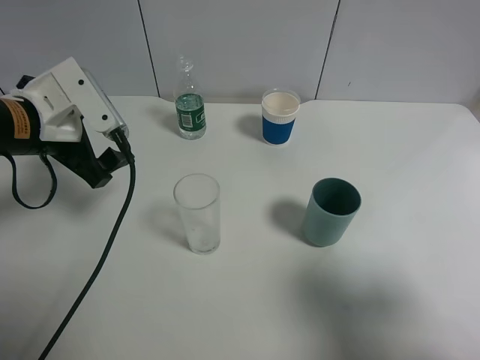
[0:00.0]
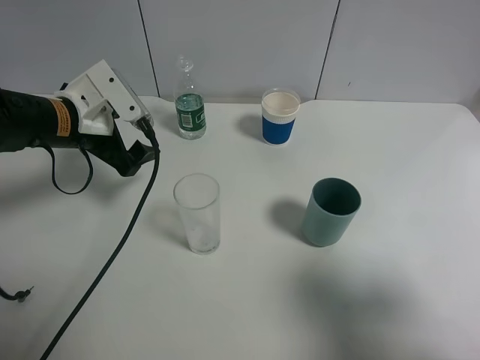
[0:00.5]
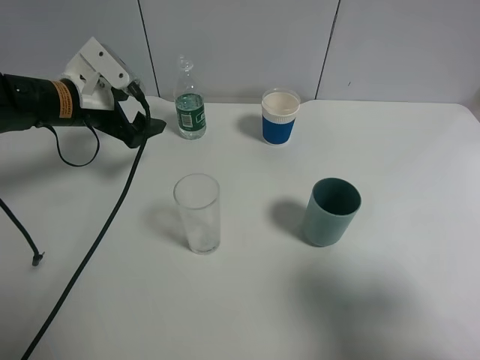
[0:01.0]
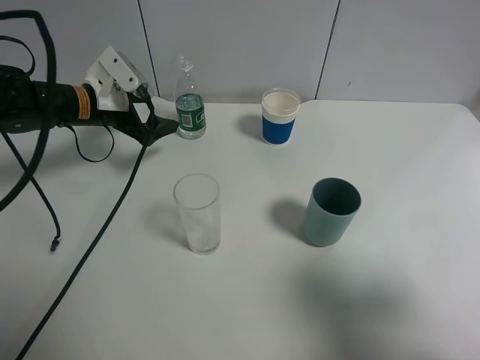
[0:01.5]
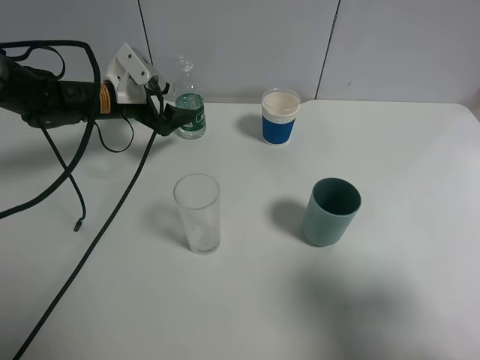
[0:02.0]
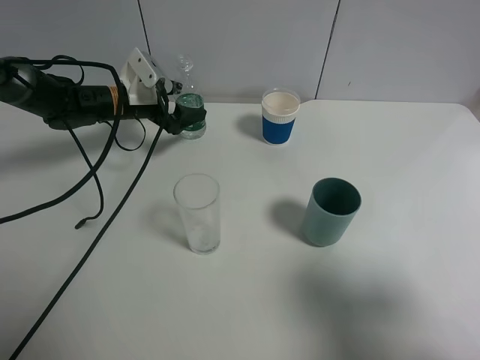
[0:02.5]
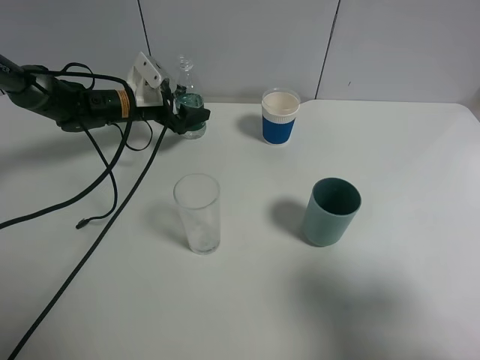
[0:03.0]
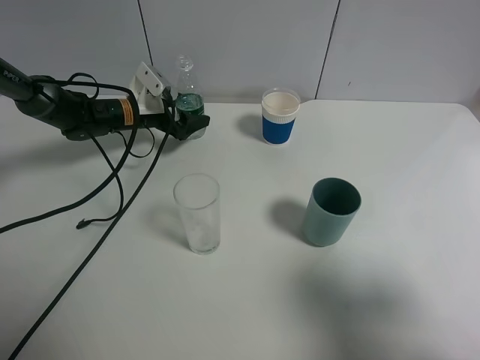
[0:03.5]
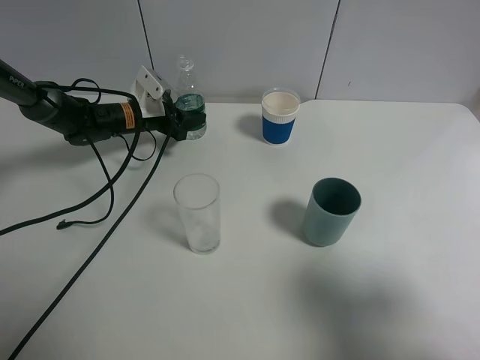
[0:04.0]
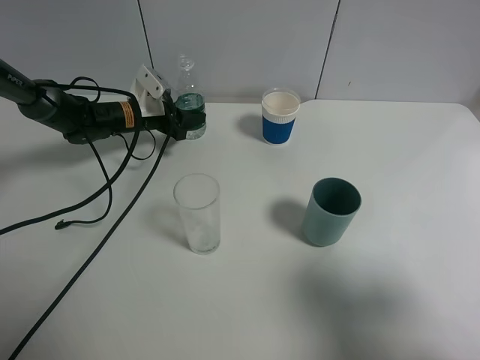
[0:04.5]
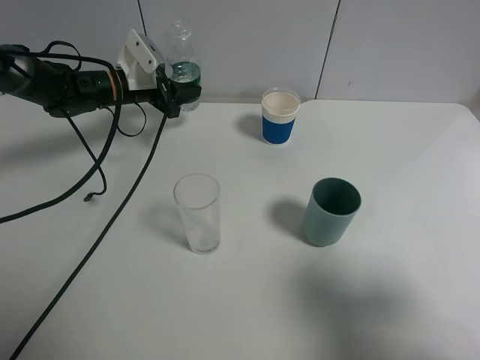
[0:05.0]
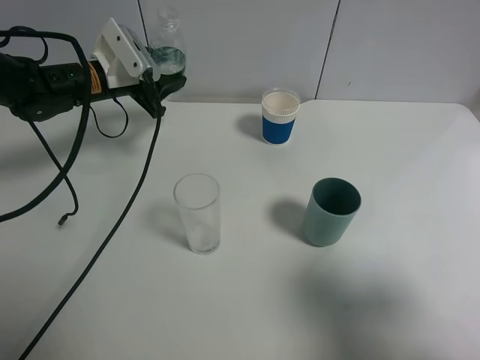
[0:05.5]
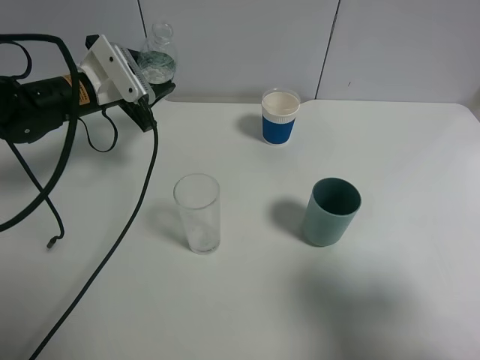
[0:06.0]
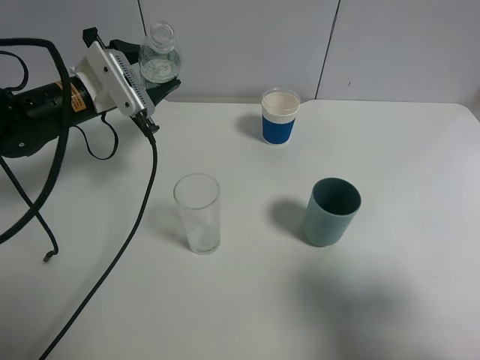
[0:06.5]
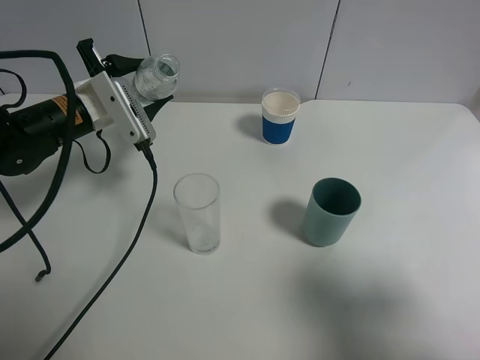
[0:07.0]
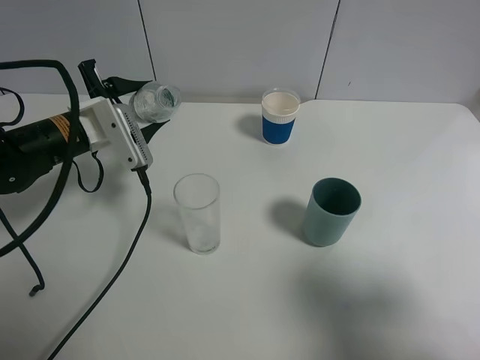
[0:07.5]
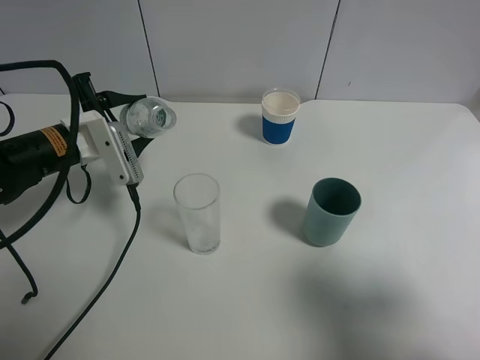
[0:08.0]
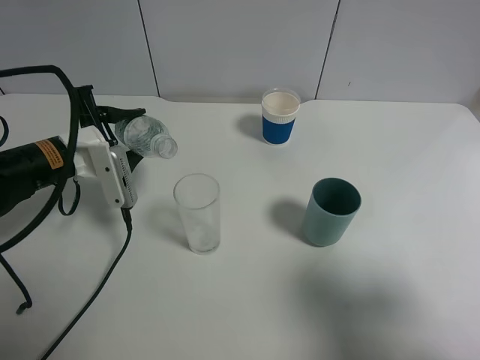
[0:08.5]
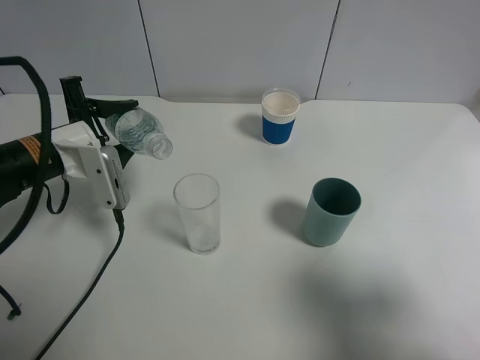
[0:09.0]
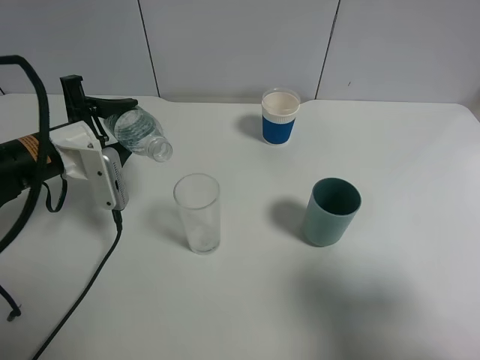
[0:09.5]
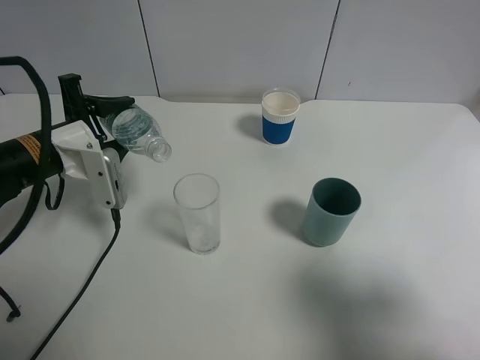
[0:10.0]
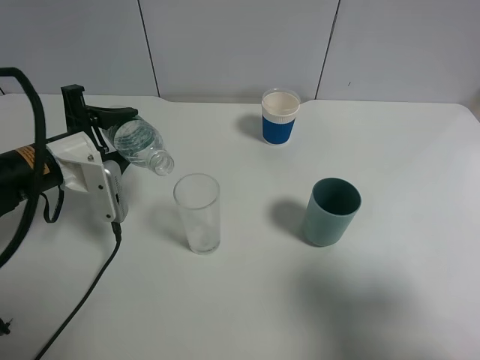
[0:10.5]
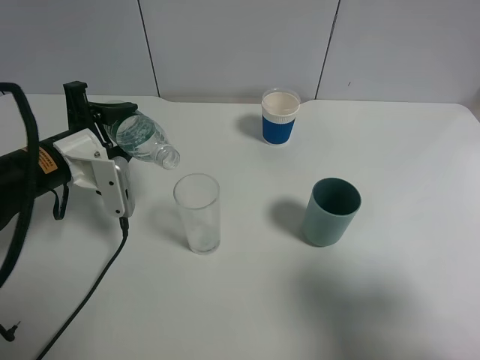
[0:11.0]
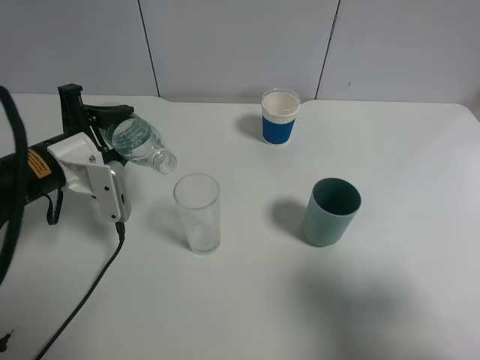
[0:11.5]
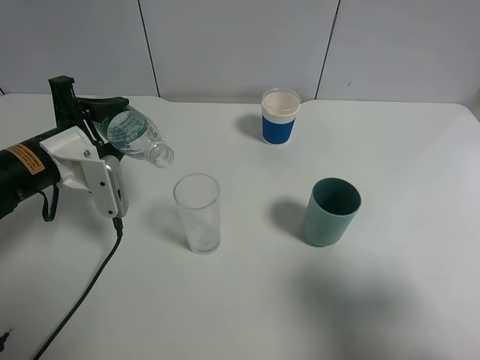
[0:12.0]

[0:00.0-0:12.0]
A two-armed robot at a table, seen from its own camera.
Task of the whole recording: use a gripper to hold the bottle of the drink and pour it into a random cup.
Step, 0:00.0 to 0:04.0: Grasp the mineral water bottle with the left gripper.
0:00.0 to 0:02.0: The left gripper shifts some 20 cm forward and downward.
0:02.0 to 0:04.0: The left gripper travels downward by about 5 cm, and closes its fingers.
0:04.0 to 0:06.0: The left gripper travels upward and backward by approximately 15 cm.
0:06.0 to 0:08.0: The left gripper heads backward, covering some 5 cm.
0:10.0 to 0:12.0: The grippers move only a little.

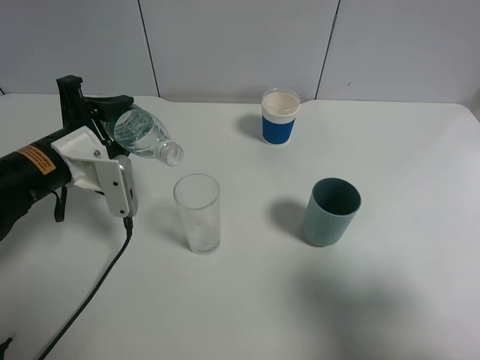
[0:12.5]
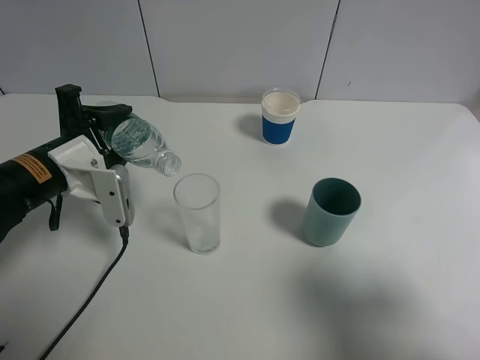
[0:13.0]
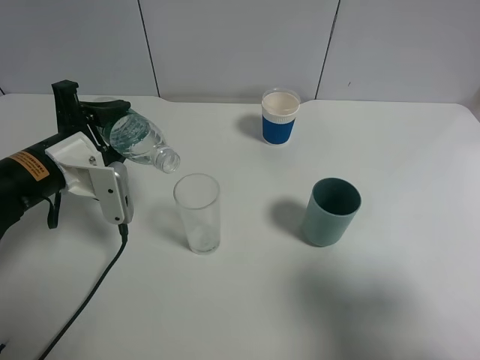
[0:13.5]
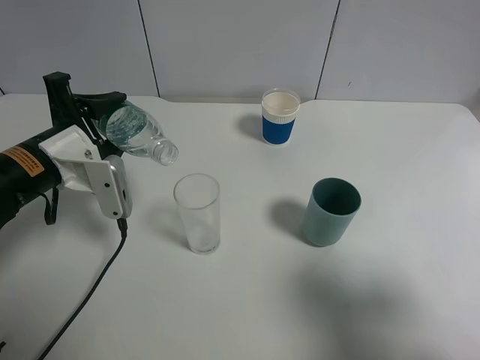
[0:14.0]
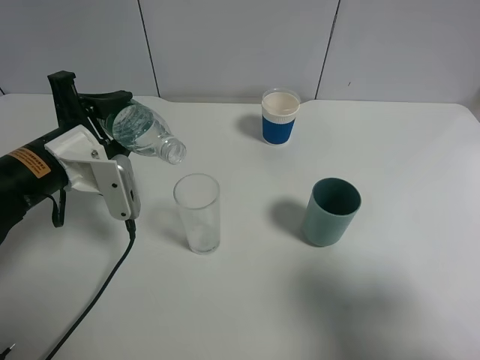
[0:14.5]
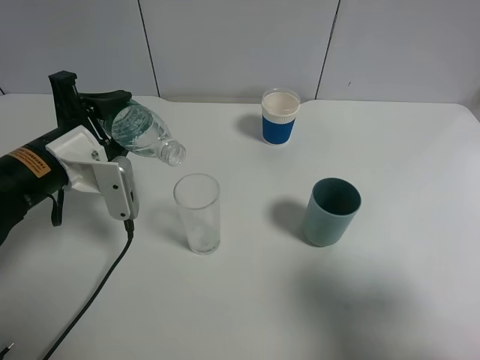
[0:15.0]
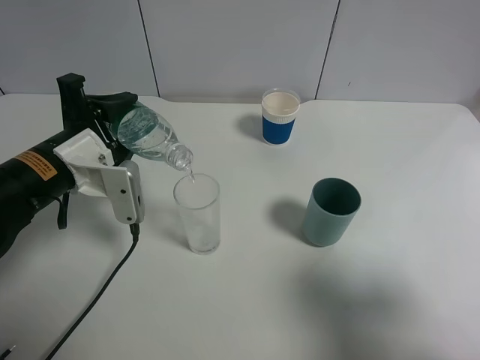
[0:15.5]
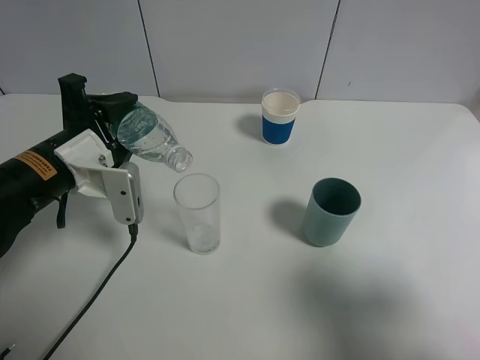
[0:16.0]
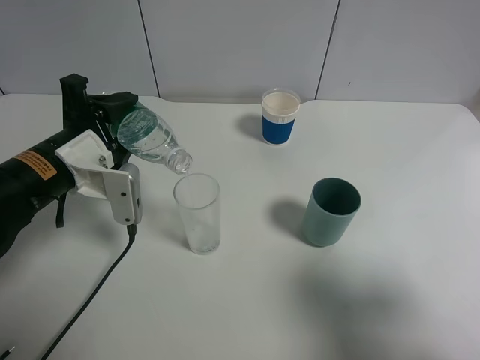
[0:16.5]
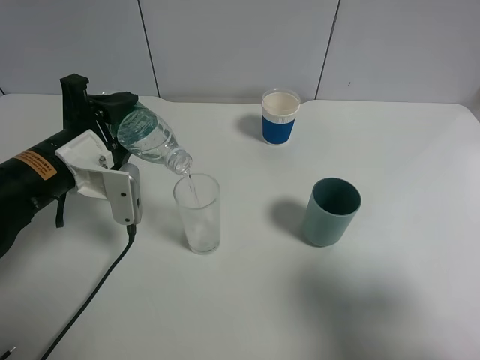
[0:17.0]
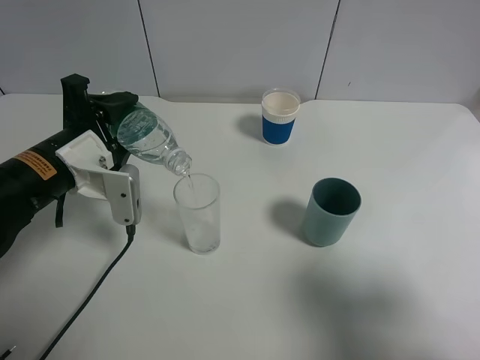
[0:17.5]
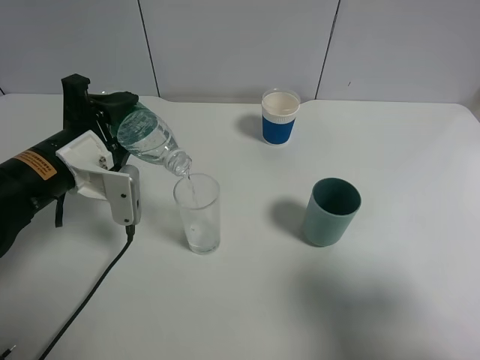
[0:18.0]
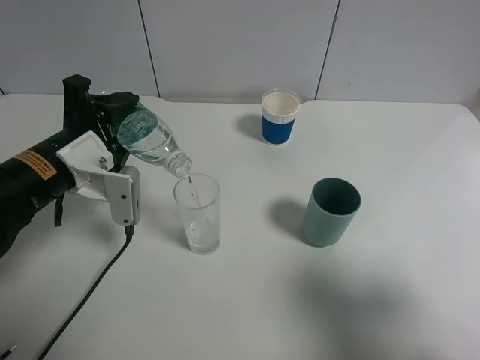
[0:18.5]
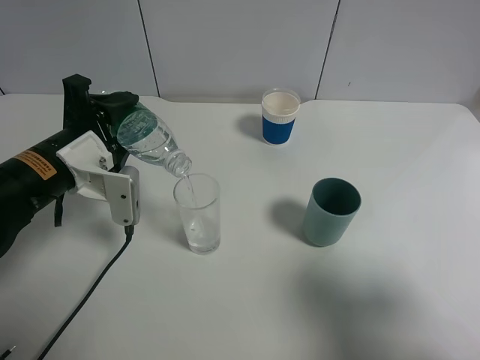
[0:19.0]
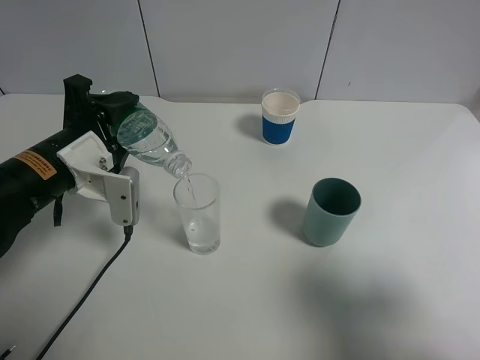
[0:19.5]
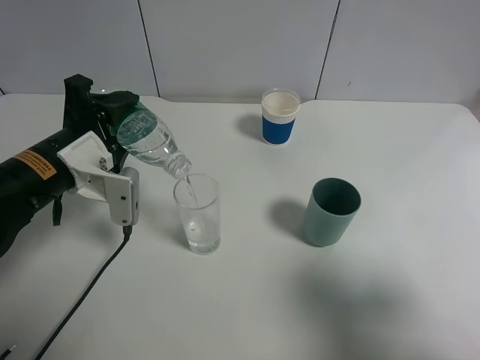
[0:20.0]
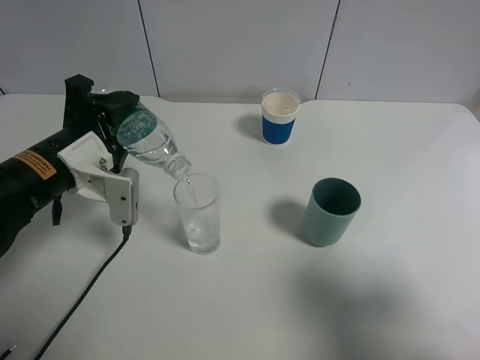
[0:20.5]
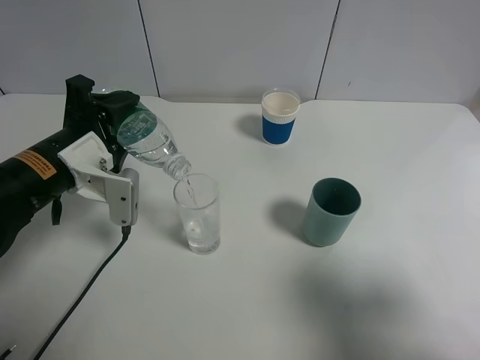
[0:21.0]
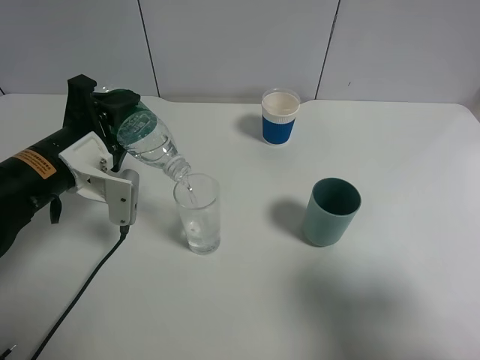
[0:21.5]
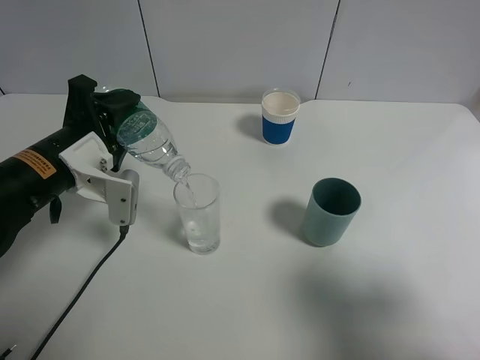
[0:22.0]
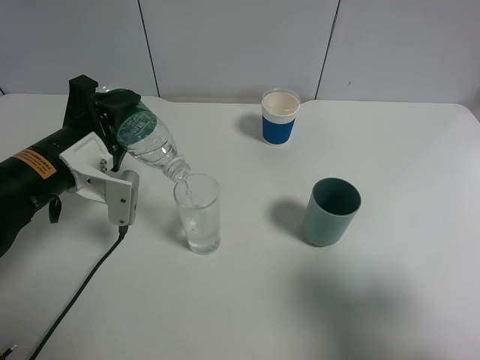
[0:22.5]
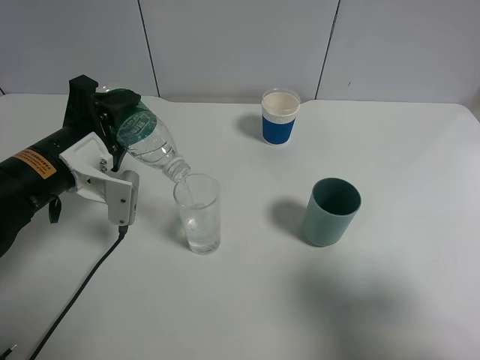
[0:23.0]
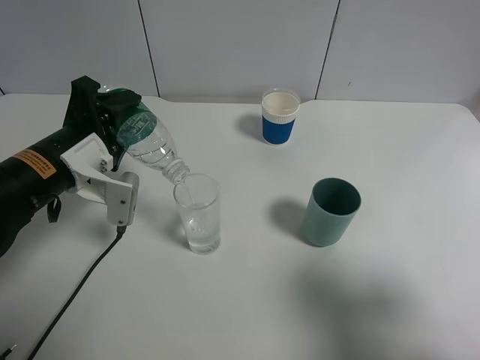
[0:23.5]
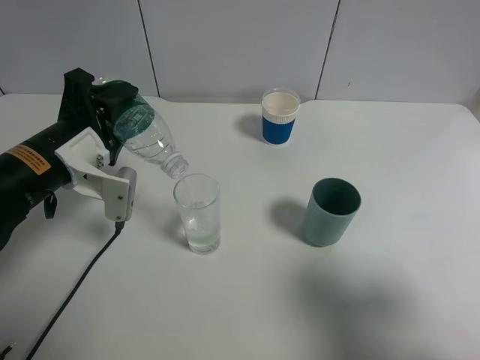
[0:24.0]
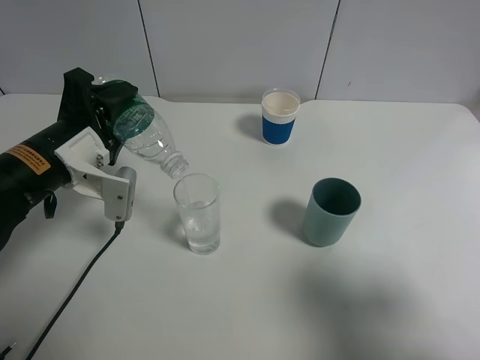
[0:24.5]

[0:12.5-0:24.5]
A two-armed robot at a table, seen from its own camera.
Task of the whole recording: use a gripper to hold the bottle of the drink and pour it into a random cup.
0:12.5 to 0:16.5: There are only small adjustments of the grippers.
0:16.5 to 0:18.5: The two grippers keep their place.
0:18.5 to 0:20.5: Both grippers stay put.
0:20.5 to 0:22.5: Both grippers stay about where they are.
0:22.5 to 0:24.5: Neither gripper changes place.

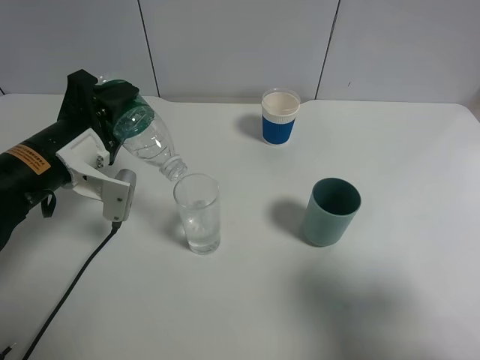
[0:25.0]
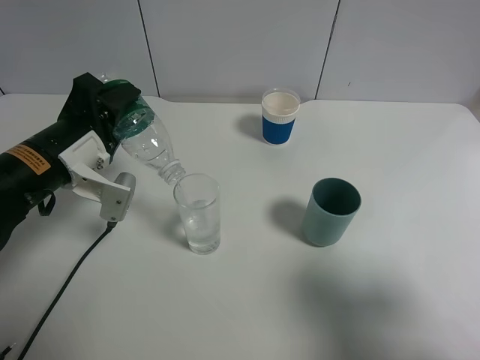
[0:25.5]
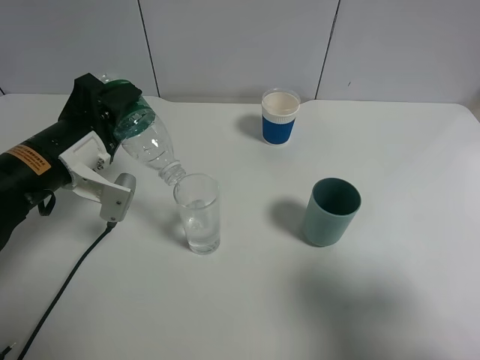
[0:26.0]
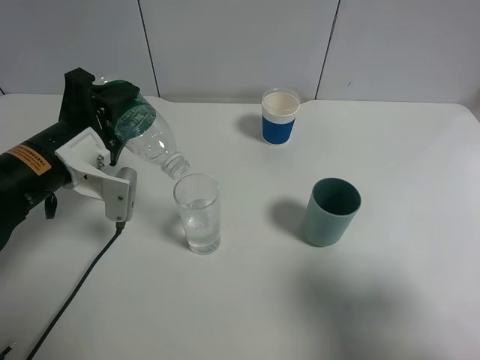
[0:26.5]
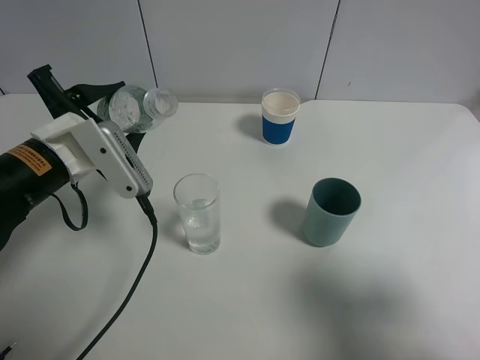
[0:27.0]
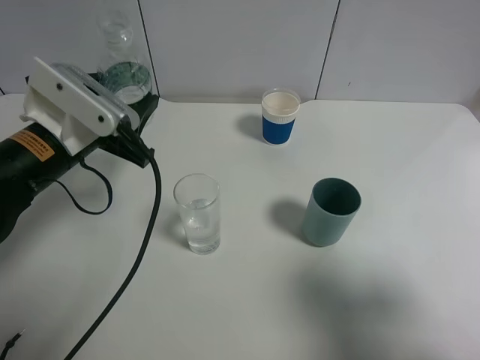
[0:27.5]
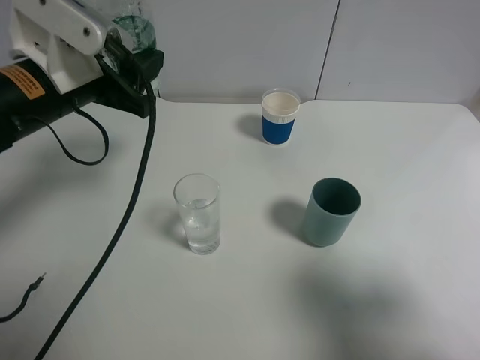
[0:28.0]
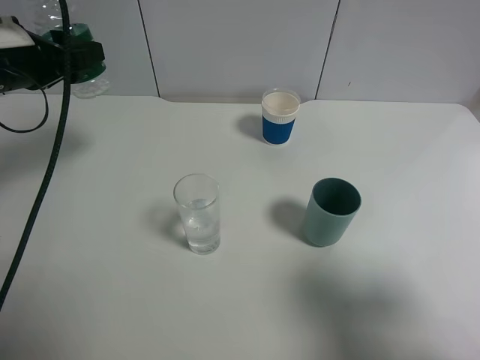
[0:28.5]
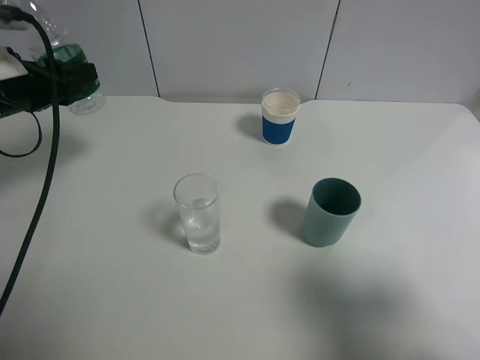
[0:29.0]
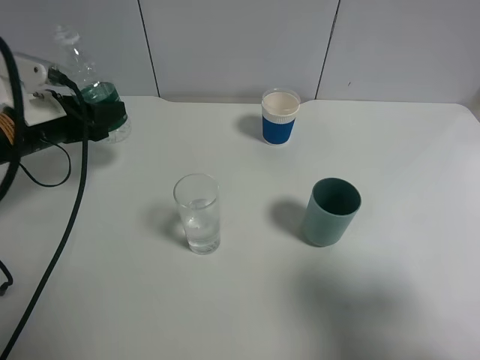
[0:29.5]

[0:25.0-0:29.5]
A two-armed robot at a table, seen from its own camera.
Task of the whole recording: use a gripper to hold the bottle of the drink and pour it into a random cup.
0:27.0 to 0:29.5: The left gripper is displaced to the left and forward by roughly 10 cm, and goes upward and returns, about 10 cm each way.
